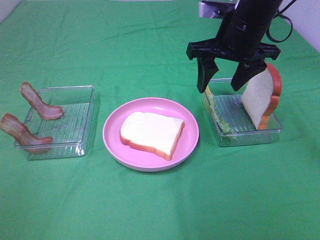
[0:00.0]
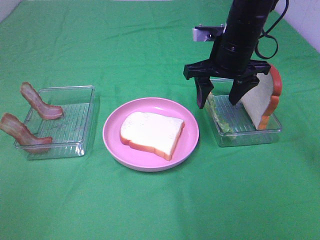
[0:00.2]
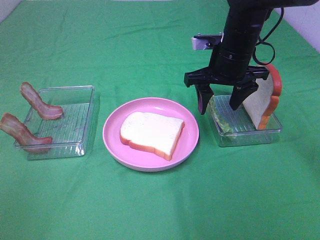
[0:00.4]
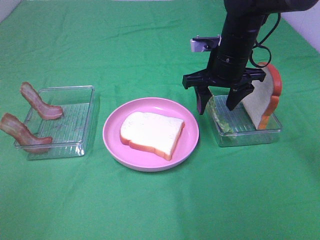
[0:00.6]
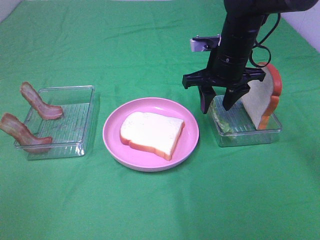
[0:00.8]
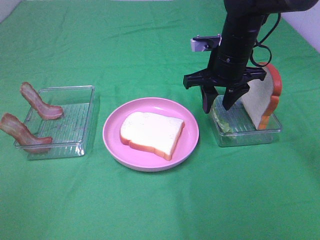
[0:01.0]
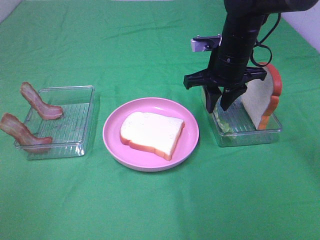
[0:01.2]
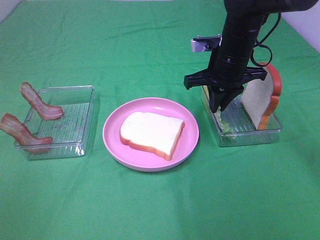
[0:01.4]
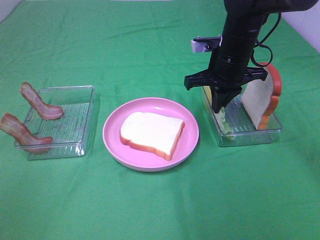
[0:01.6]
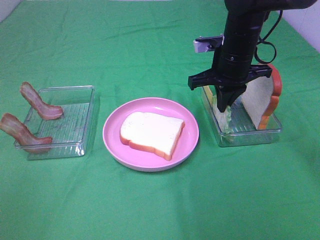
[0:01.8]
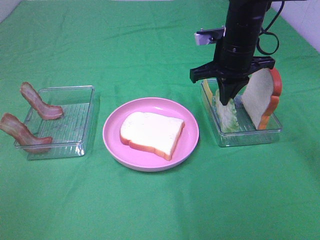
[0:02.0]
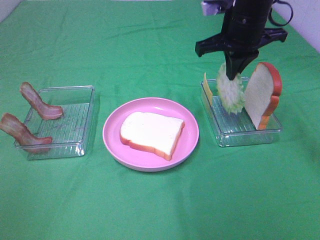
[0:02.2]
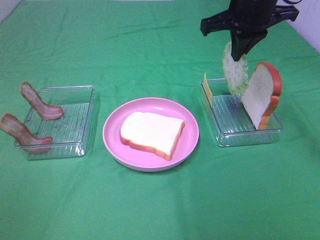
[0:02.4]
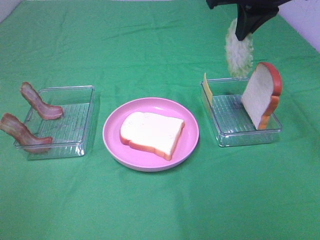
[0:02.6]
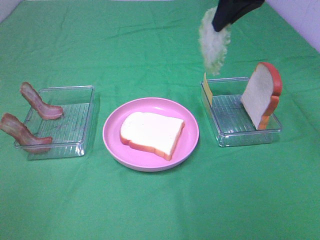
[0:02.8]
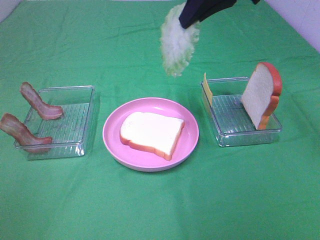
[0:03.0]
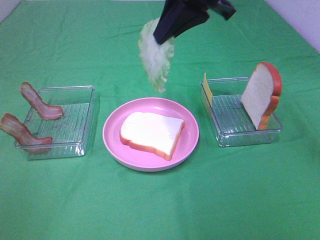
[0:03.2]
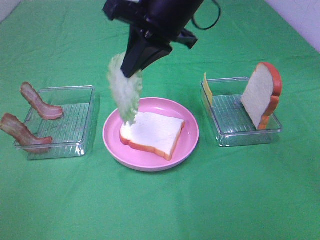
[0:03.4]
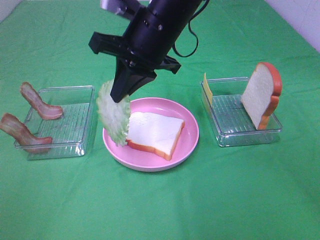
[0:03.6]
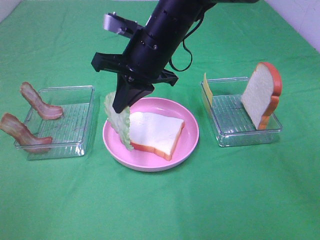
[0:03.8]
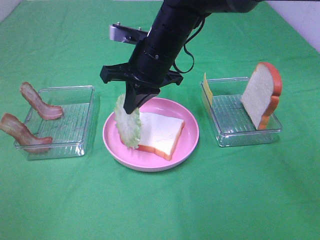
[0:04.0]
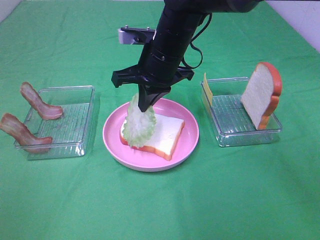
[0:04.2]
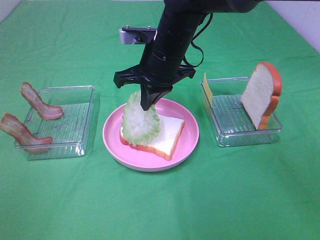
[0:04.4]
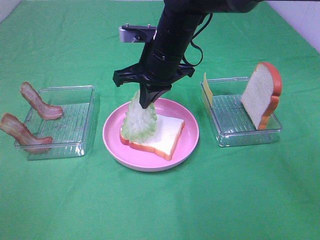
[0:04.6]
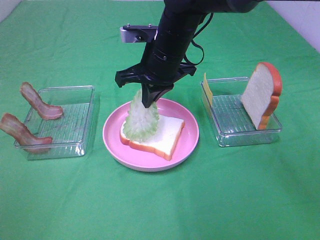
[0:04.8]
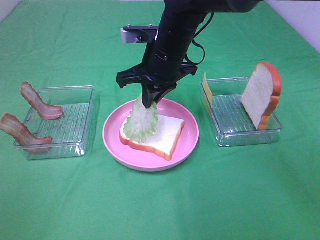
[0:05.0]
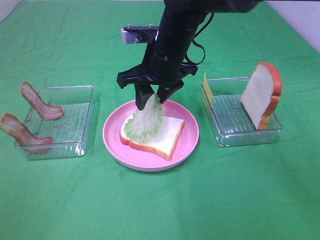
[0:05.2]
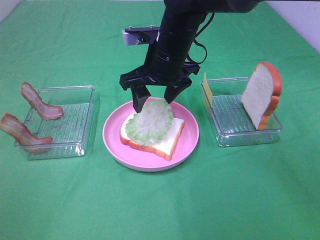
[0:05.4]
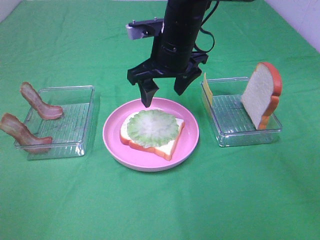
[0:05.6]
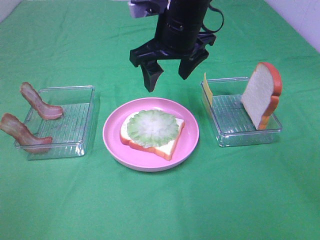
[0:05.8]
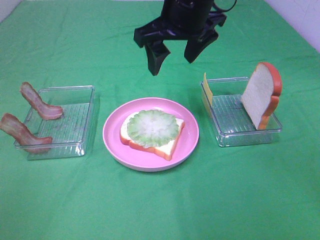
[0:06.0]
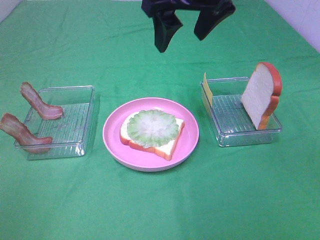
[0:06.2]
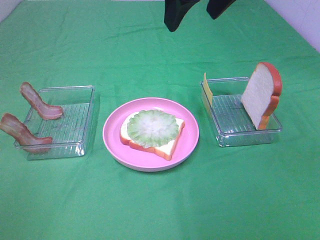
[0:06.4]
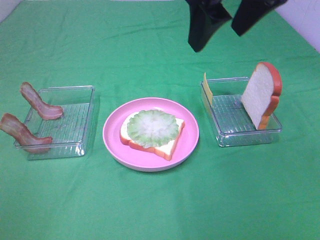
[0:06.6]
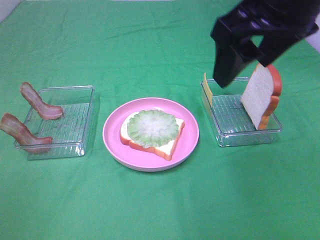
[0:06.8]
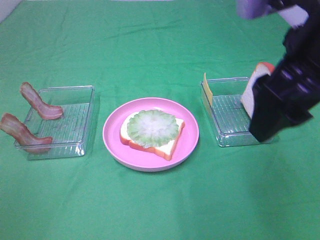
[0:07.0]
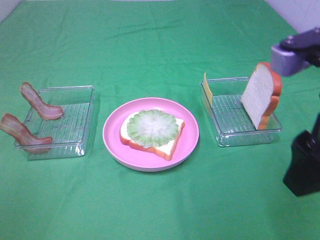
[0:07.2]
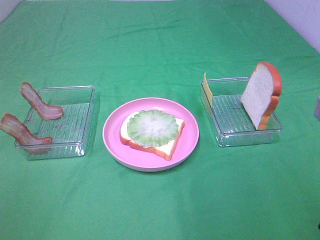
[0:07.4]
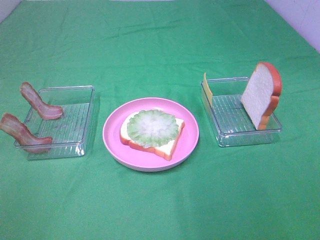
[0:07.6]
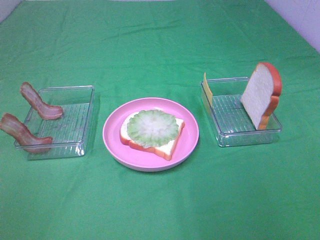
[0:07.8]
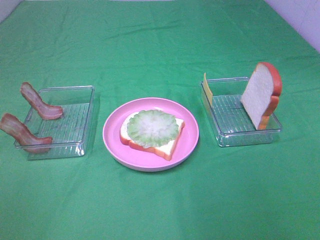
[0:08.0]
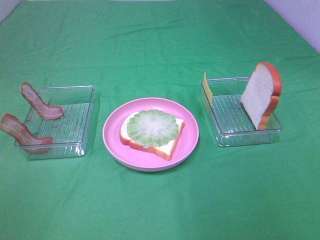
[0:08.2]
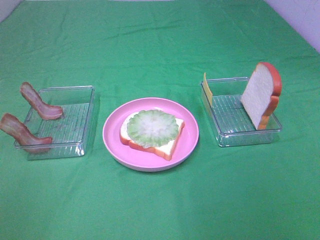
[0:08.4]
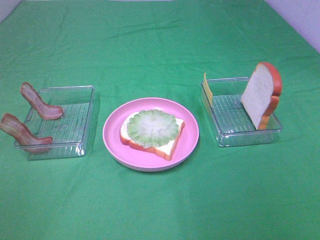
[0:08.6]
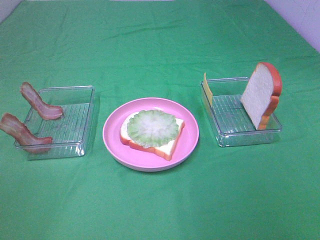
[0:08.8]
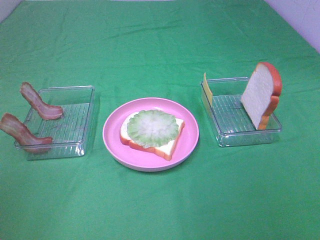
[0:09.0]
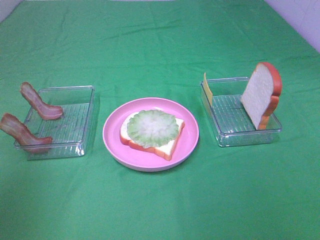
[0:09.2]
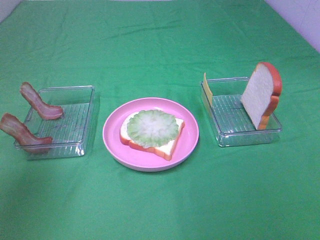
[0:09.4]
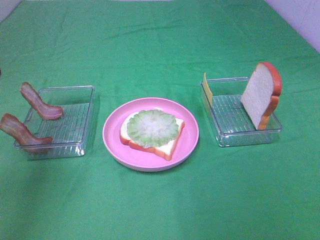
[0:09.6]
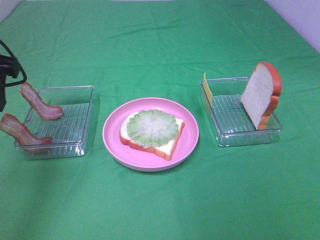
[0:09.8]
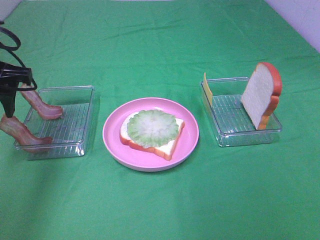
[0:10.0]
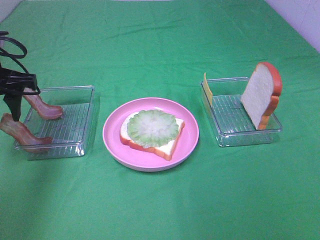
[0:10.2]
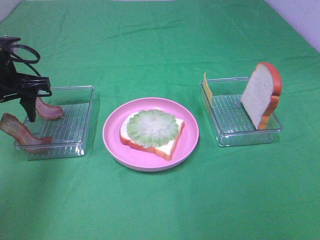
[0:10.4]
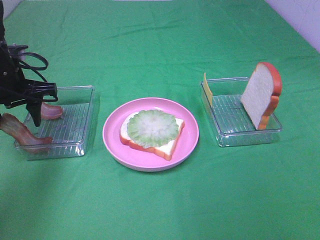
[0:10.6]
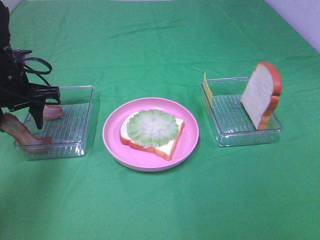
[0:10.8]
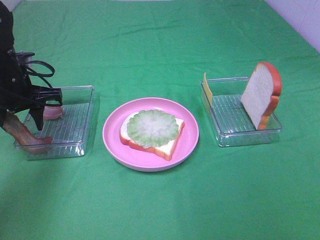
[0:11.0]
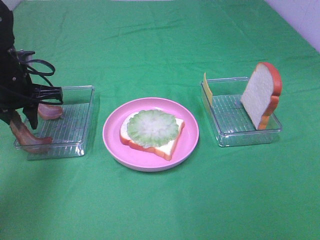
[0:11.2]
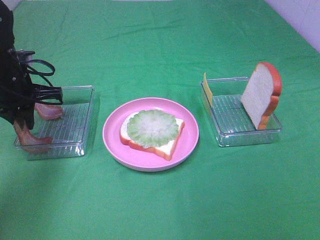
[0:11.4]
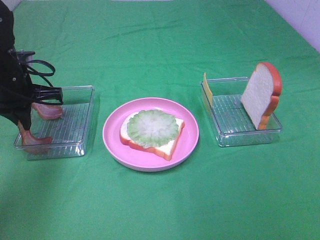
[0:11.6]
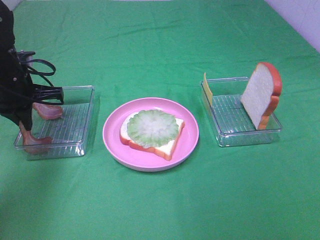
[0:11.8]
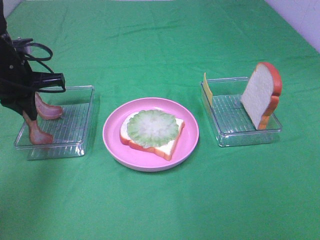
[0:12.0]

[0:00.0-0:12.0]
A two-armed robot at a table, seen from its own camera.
Task of the whole recording: Make sandwiches.
Step, 0:01.8 to 0:05.4: Right hand:place the lettuce slice on the bread slice.
Step, 0:05.6 to 0:11.6: Left hand:grab the bacon.
0:00.0 to 0:01.6: The right gripper moves downward, about 5 cm, and closes up.
0:01.6 to 0:03.0: The right gripper shifts approximately 20 cm upward.
0:03.0 to 0:04.4: The right gripper moves downward and to the left, about 20 cm.
0:04.4 to 0:06.0: The right gripper travels upward by about 10 cm, and opens up.
0:06.0 to 0:07.6: The right gripper moves backward and to the right, roughly 35 cm.
0:09.0 to 0:10.4: The left gripper shifts about 30 cm forward and downward.
0:10.4 to 0:12.0: The left gripper closes its fingers.

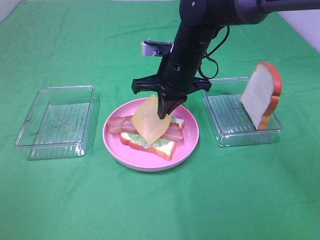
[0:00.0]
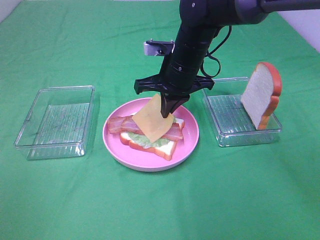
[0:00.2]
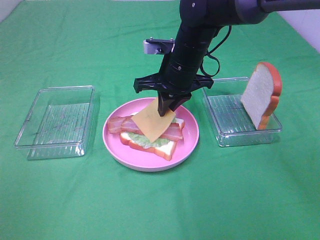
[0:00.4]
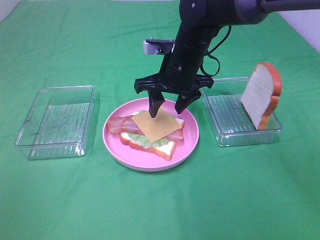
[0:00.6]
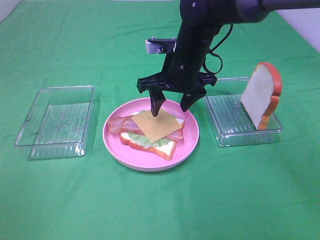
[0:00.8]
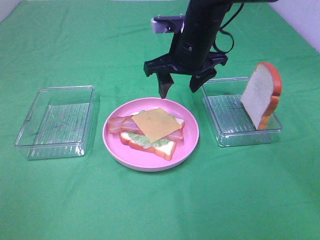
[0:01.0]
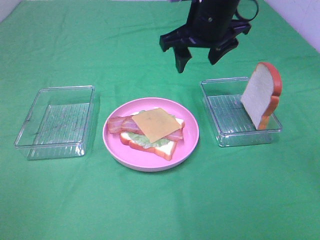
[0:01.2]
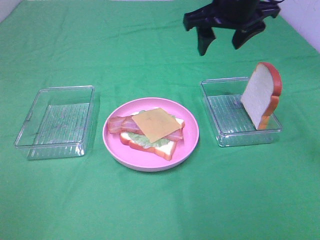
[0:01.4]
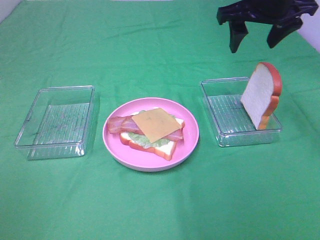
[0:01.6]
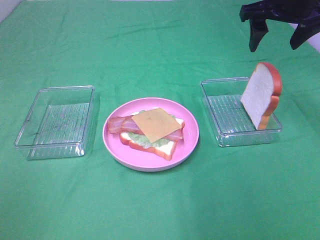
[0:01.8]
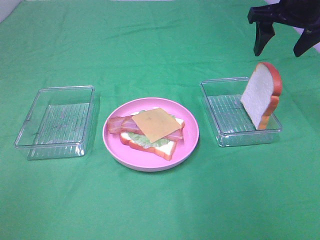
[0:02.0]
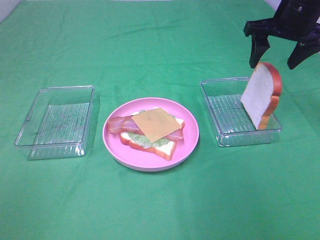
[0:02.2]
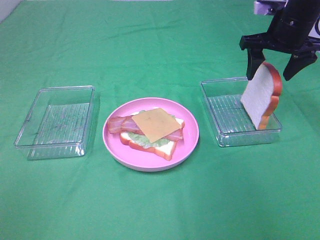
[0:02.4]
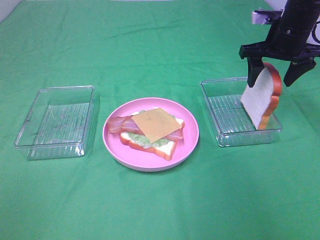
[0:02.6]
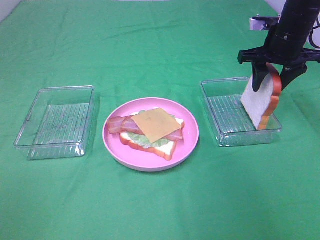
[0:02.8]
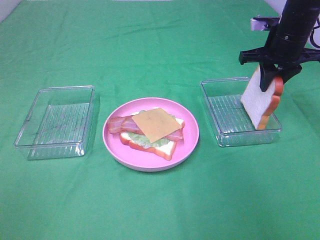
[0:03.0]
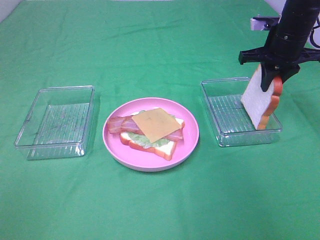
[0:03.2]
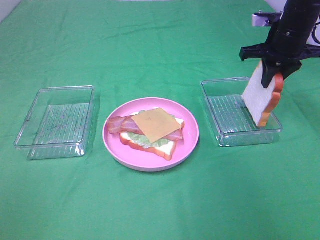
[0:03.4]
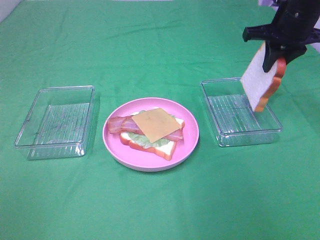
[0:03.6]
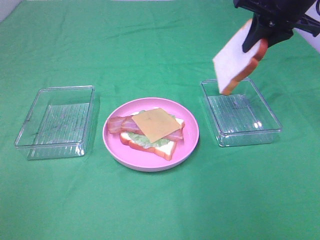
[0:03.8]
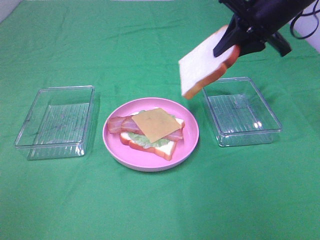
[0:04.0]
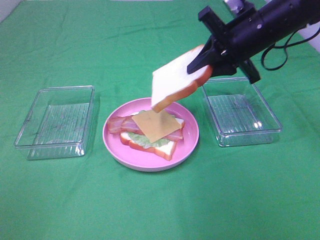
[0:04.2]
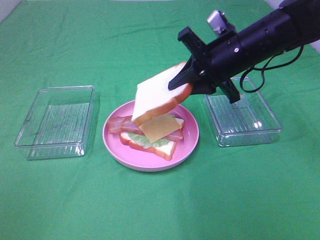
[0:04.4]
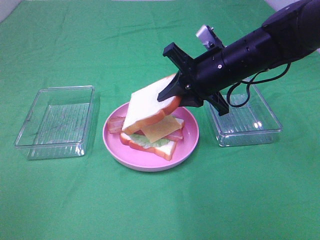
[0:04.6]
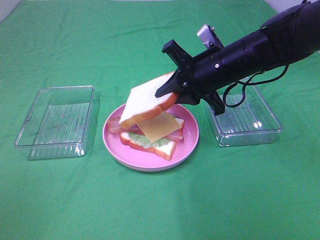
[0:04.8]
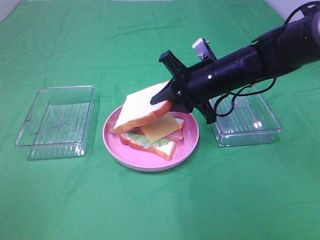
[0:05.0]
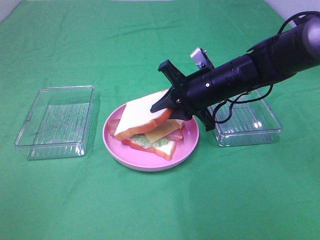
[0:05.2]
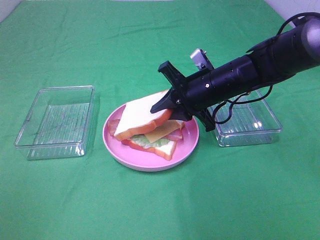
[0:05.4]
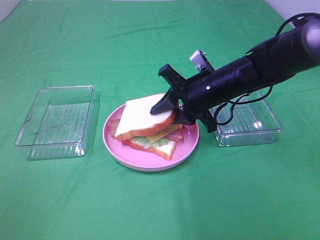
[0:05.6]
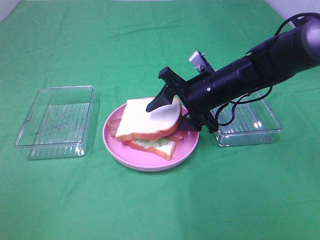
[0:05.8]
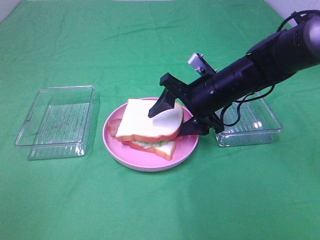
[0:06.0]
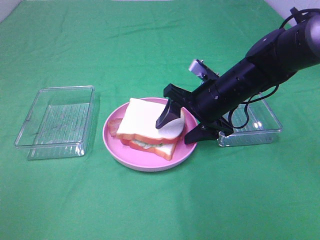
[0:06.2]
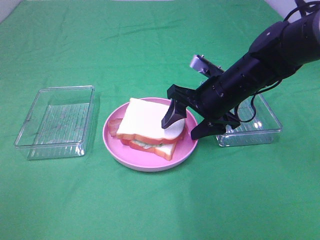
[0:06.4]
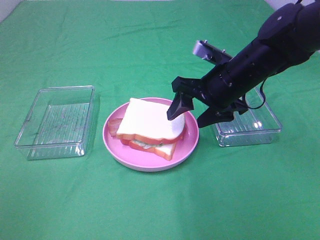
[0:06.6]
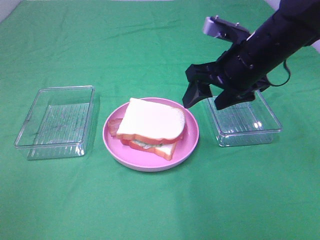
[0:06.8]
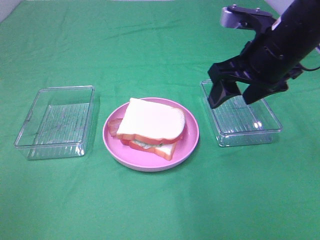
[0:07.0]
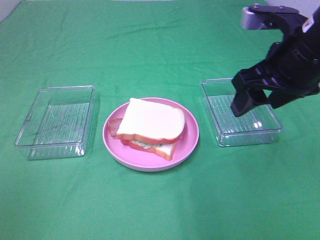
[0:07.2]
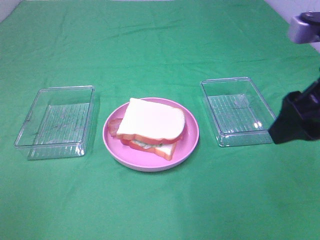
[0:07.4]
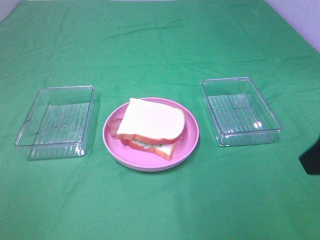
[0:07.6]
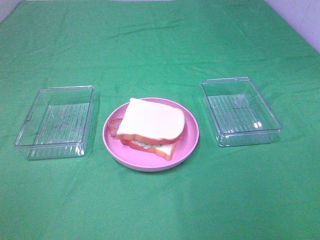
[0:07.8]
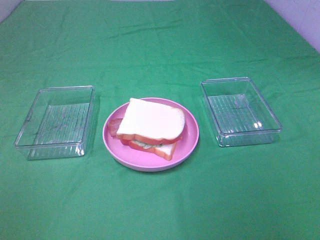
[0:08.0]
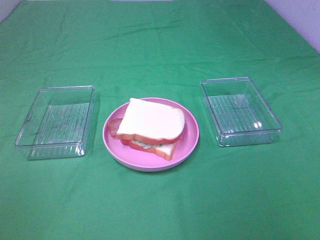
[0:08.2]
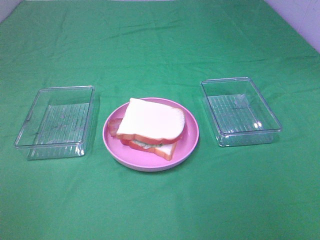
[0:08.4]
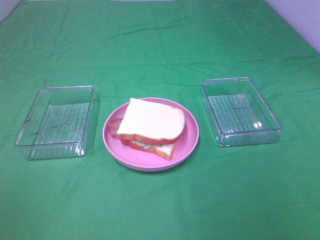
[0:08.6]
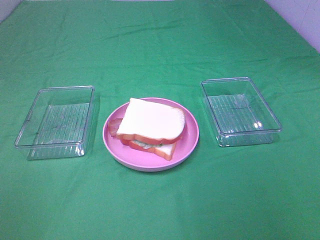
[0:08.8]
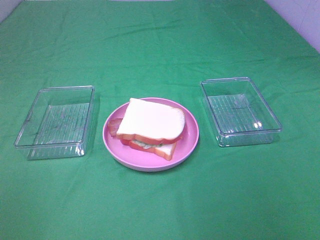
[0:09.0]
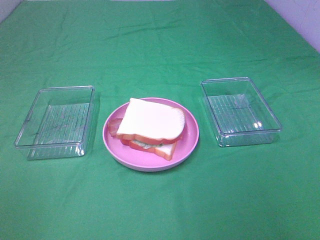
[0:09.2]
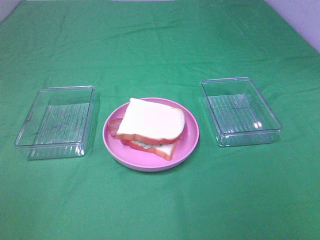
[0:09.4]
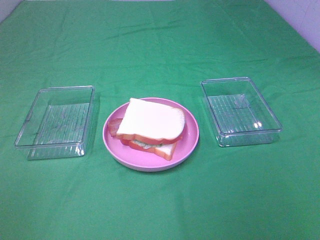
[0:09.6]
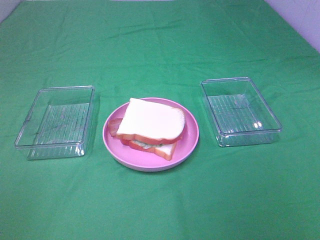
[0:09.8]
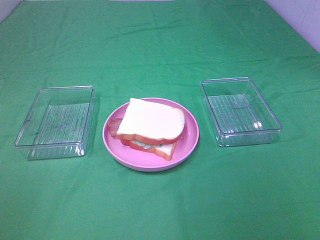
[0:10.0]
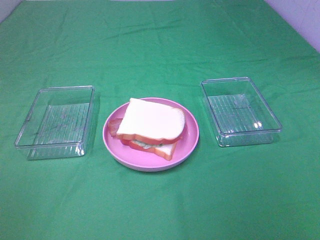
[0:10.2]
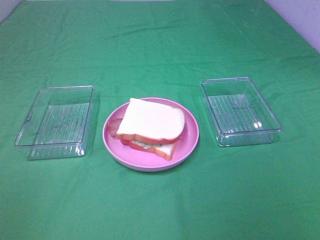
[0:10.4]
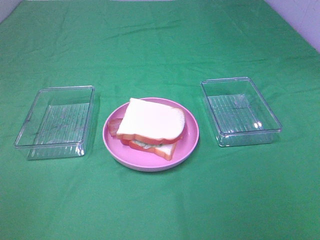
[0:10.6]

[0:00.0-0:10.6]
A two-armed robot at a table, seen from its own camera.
Task of the whole recording: Make sandwiches.
Step, 0:00.8 to 0:03.2: Right hand:grab the bread slice.
0:00.0 to 0:01.6: The right gripper travels to the right and upward by about 20 cm, and opens up.
0:01.6 to 0:03.0: The right gripper goes roughly 10 cm downward and to the right, and closes its fingers.
0:03.0 to 0:04.6: The right gripper shifts some 15 cm to the left and backward.
0:04.6 to 0:06.0: The right gripper goes approximately 5 cm downward, and opens up.
0:06.0 to 0:07.6: The right gripper shifts about 30 cm backward, upward and to the right.
0:07.6 to 0:09.0: The right gripper moves backward, approximately 15 cm.
